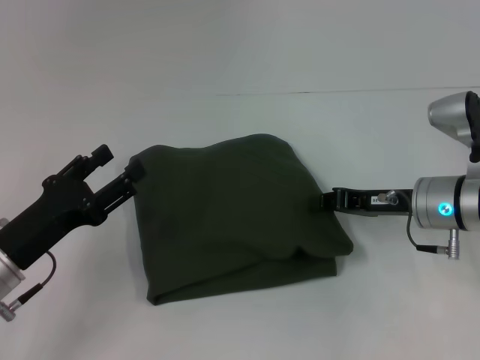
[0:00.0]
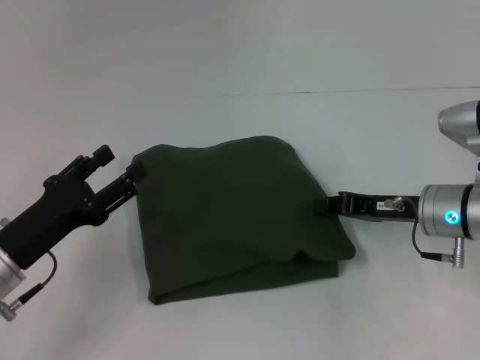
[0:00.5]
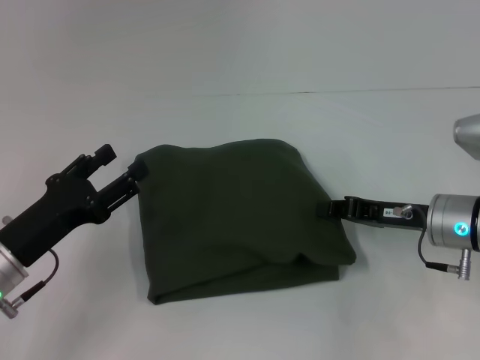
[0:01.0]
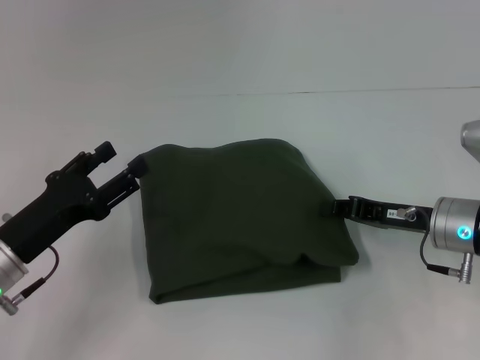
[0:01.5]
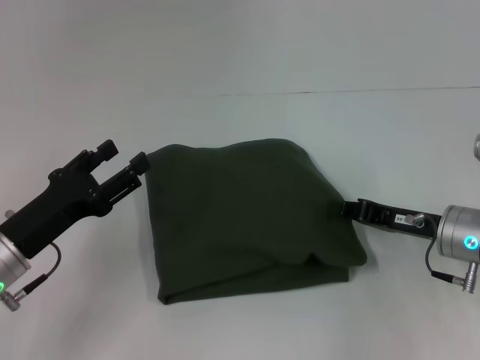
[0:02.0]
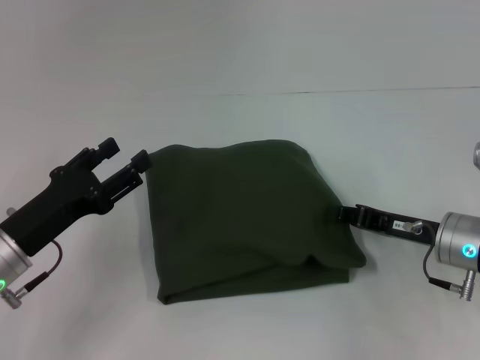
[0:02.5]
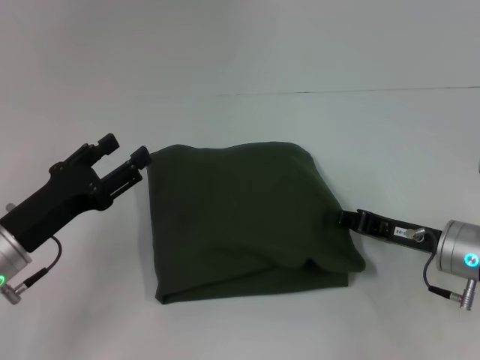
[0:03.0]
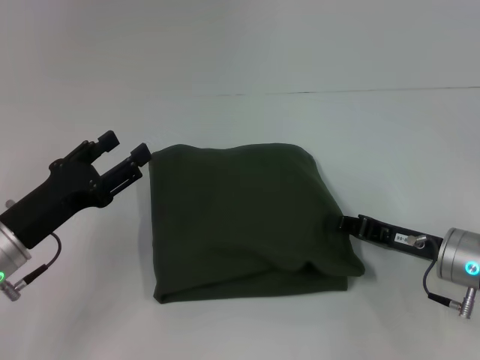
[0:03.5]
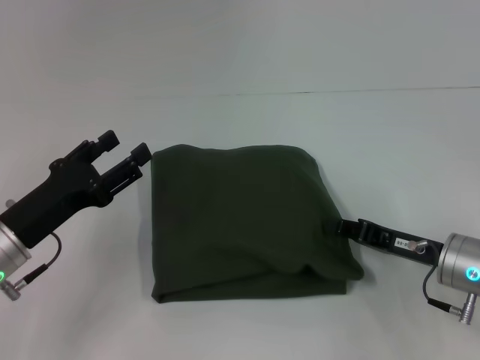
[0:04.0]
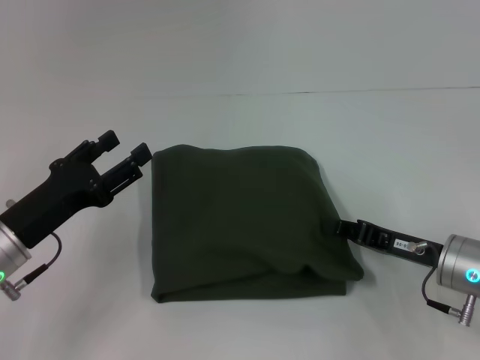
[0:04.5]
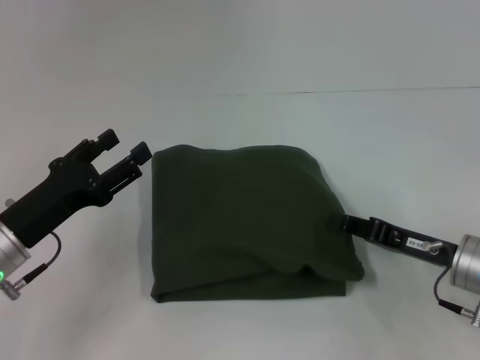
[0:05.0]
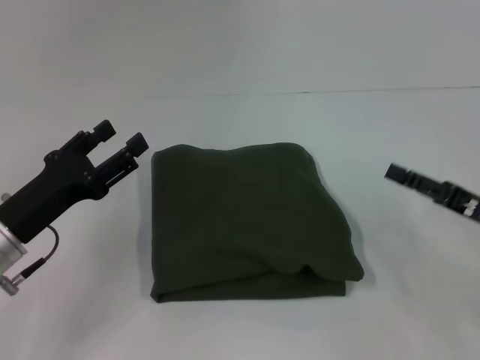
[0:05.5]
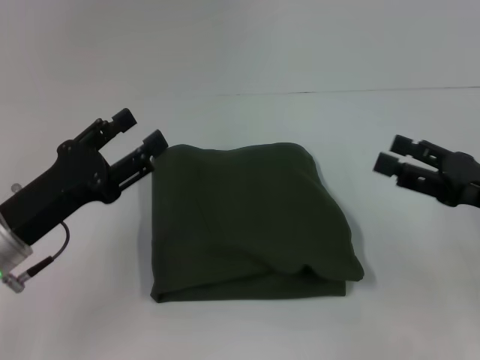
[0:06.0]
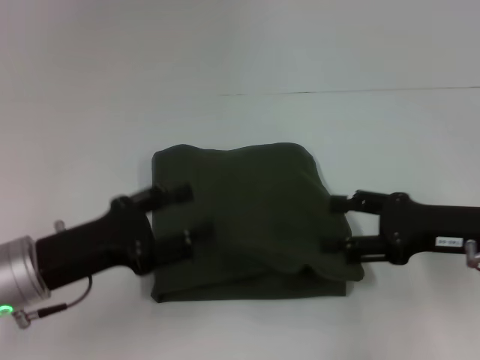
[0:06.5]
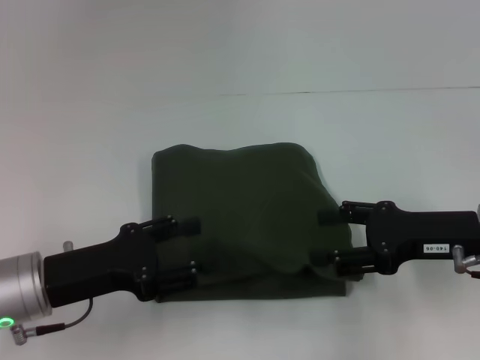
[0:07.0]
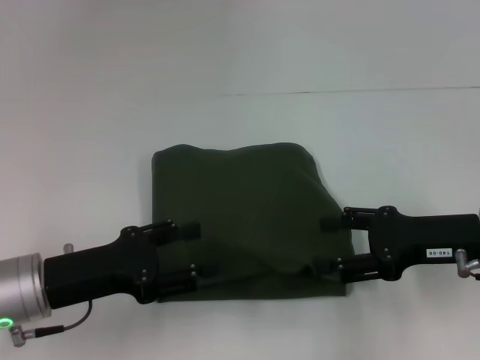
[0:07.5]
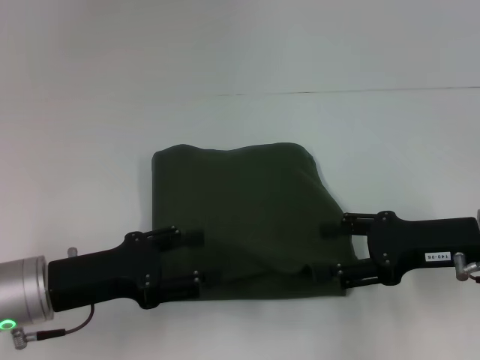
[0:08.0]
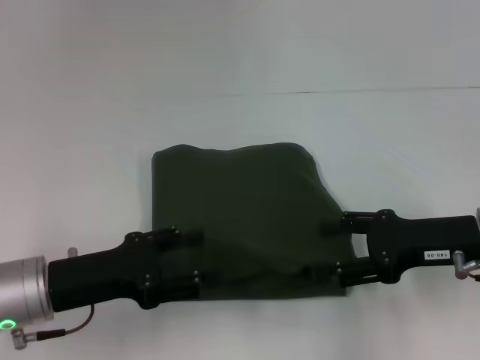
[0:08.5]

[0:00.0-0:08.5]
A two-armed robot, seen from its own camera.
0:00.0 to 0:02.0: The grippers make only small movements.
0:02.0 to 0:04.0: There are only small adjustments of the grippers.
0:04.0 to 0:06.5: The right gripper goes roughly 10 cm upward, and opens up.
0:06.5 to 0:08.5: The grippers move only a little.

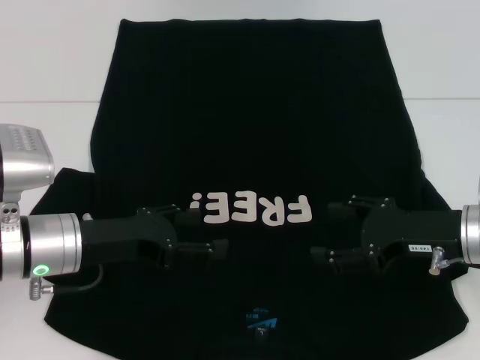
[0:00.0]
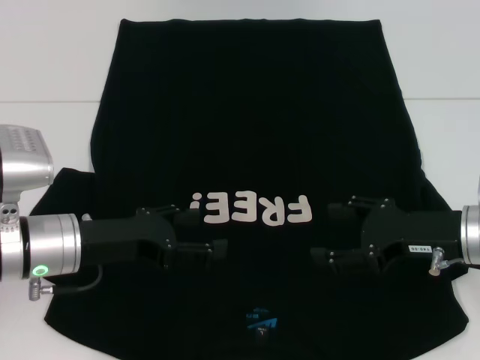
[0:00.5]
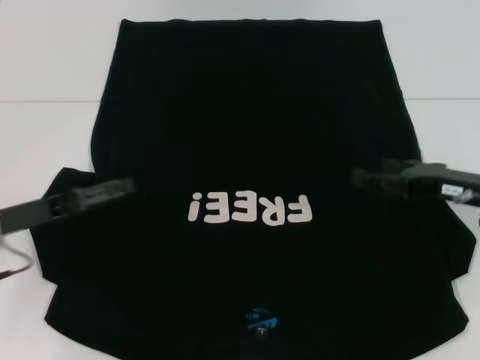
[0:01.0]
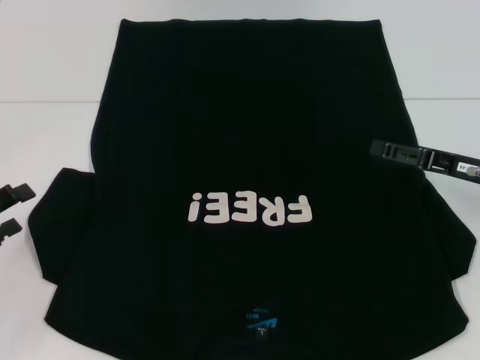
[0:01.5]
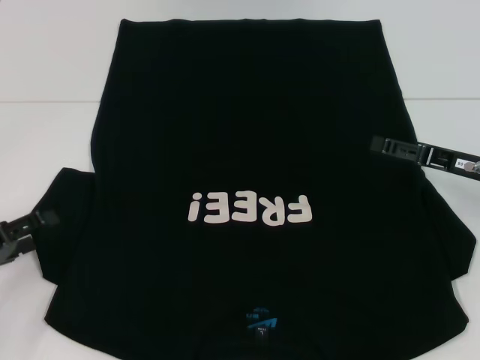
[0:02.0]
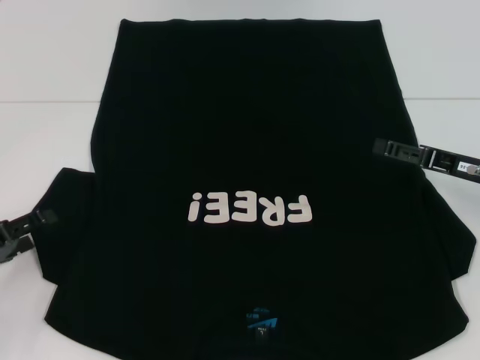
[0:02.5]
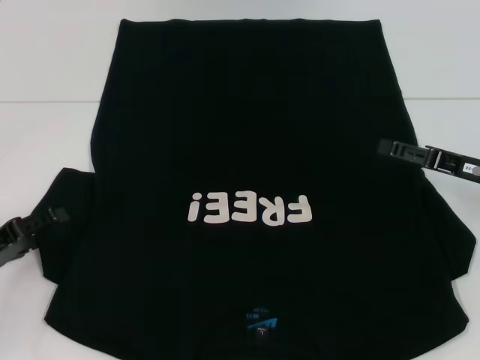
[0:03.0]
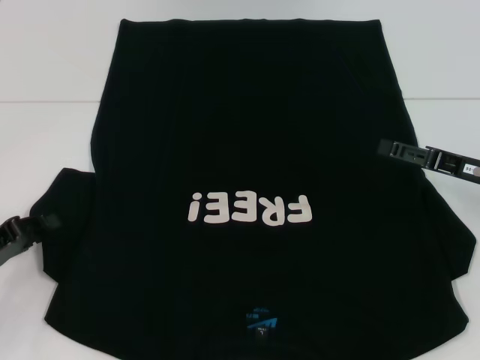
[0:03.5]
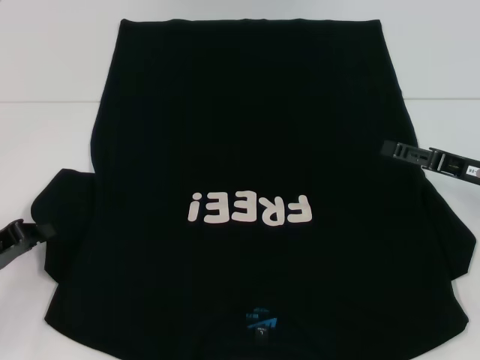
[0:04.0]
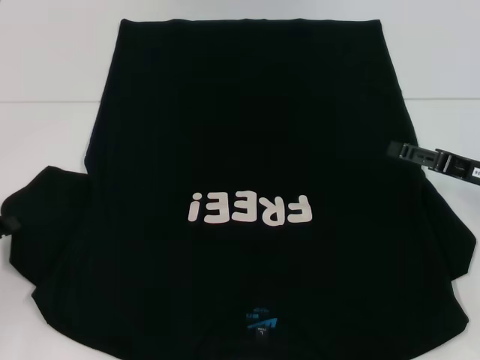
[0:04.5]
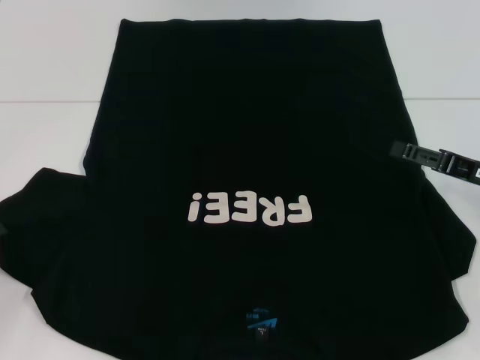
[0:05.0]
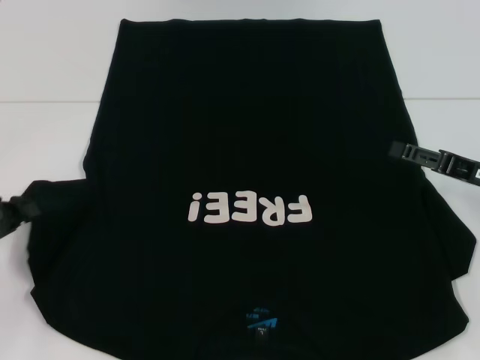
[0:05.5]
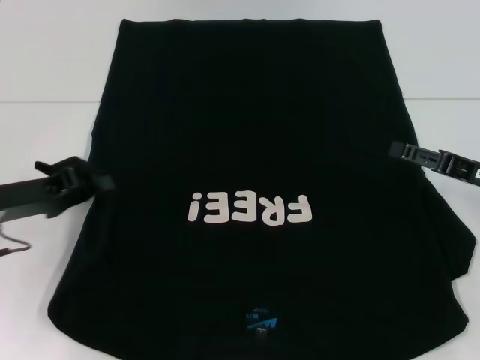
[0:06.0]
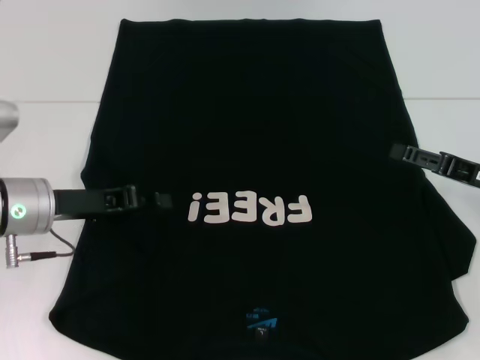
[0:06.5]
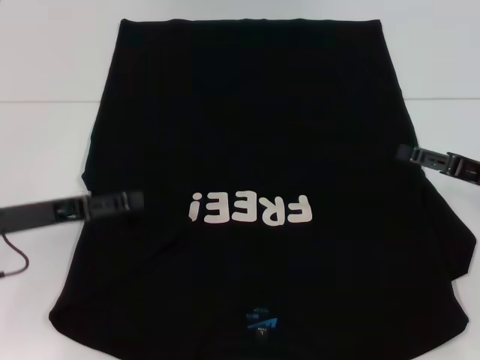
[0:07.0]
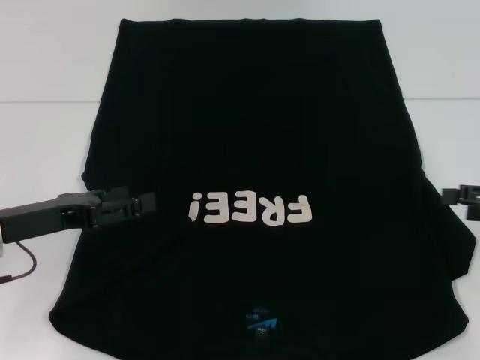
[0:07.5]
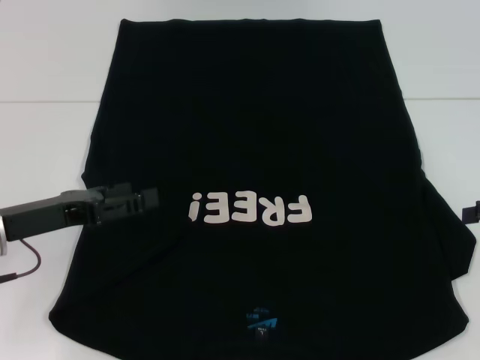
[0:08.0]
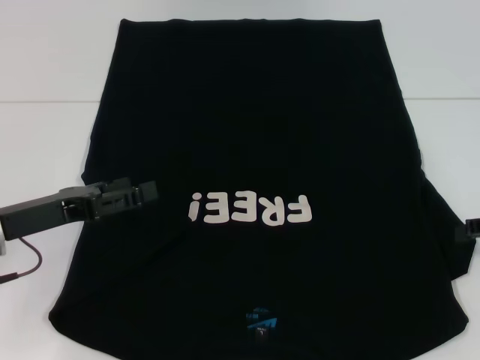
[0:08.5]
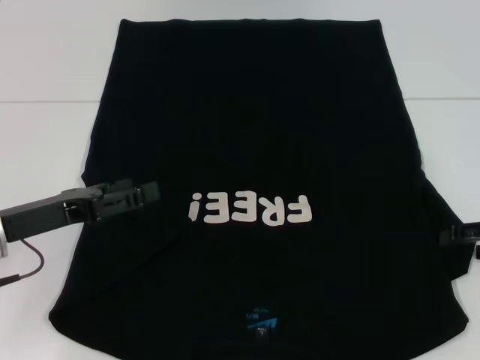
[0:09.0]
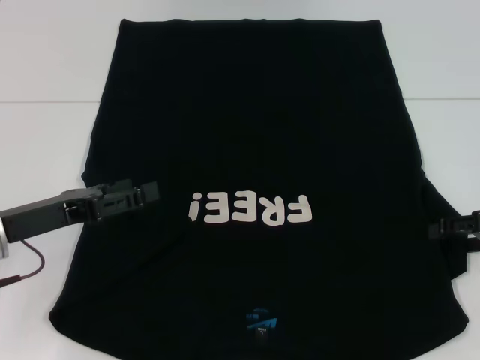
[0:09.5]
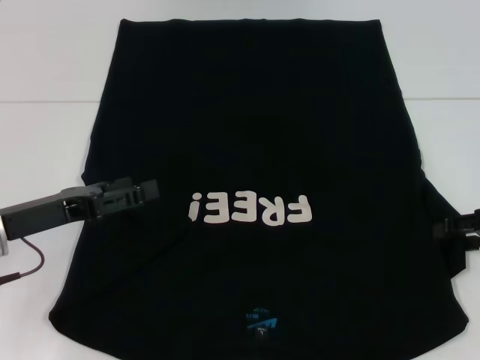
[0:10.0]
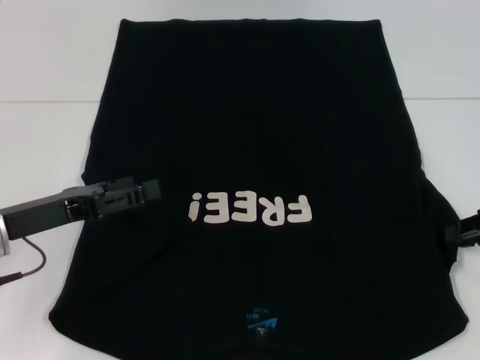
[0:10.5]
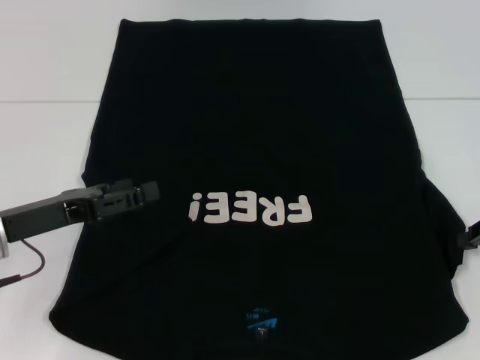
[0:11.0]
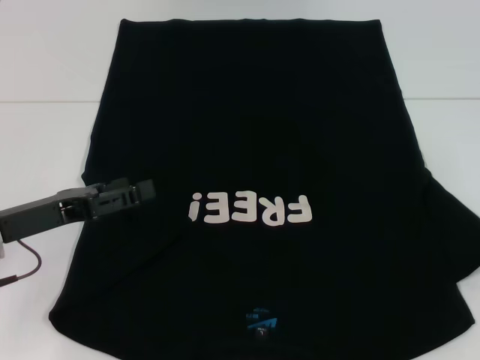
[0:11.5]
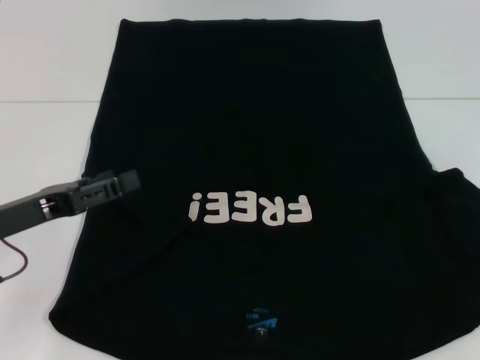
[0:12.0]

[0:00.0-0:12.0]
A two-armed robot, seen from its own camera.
Step, 0:00.0 to 0:06.5: Fold the bottom left sleeve with your left hand.
0:00.0 to 0:02.0: The right gripper shifts by roughly 5 cm. Meanwhile the left gripper is displaced to the left by some 15 cm.
0:02.0 to 0:04.0: The left gripper closes up.
0:04.0 to 0:06.0: The left gripper is displaced upward by roughly 5 cm.
0:06.0 to 0:08.0: The right gripper shifts about 10 cm to the right and upward, while the left gripper opens its fingers.
0:08.0 to 0:10.0: The grippers stay close to where they were, moving slightly.
0:10.0 to 0:12.0: The right gripper moves to the right, approximately 5 cm, and closes its fingers.

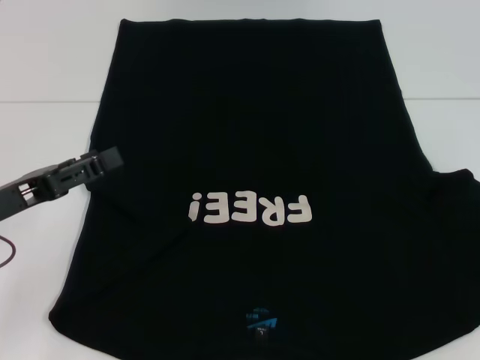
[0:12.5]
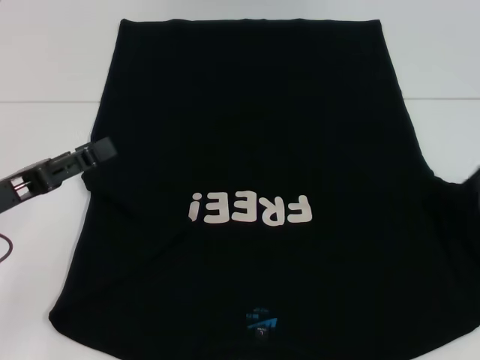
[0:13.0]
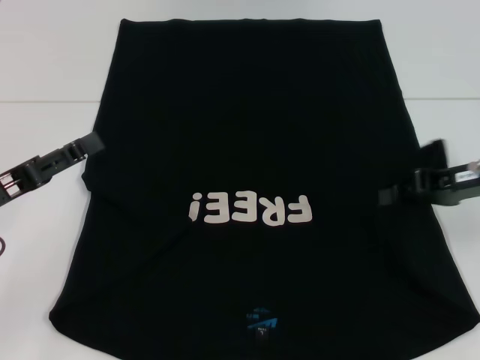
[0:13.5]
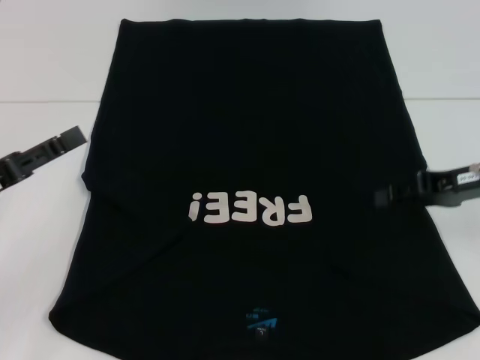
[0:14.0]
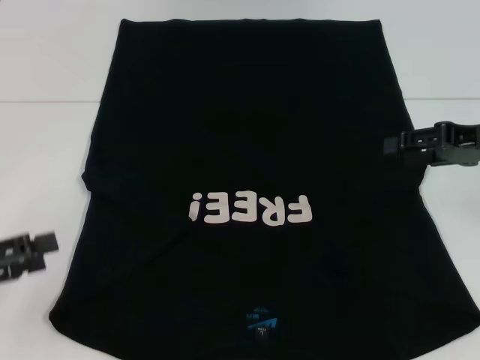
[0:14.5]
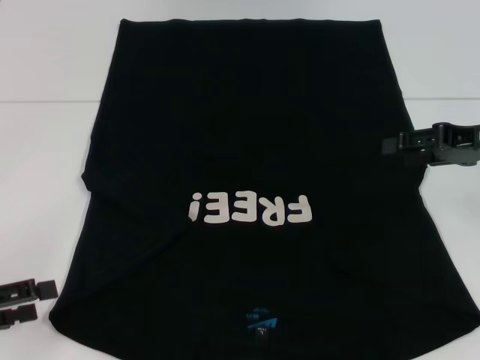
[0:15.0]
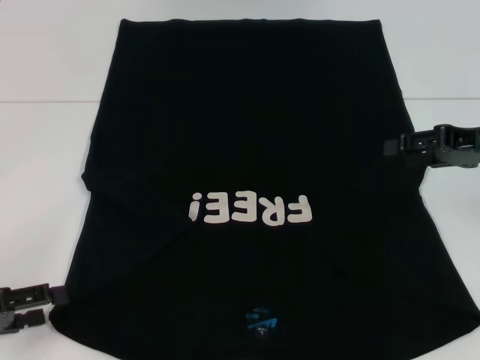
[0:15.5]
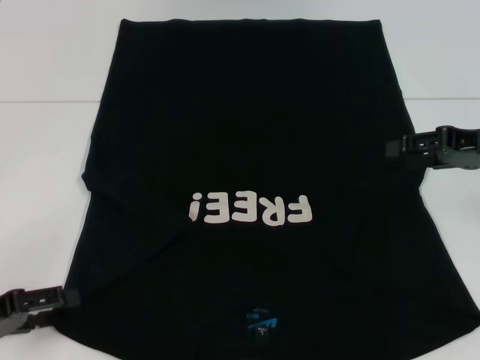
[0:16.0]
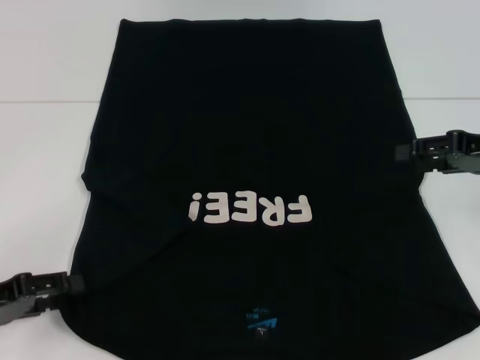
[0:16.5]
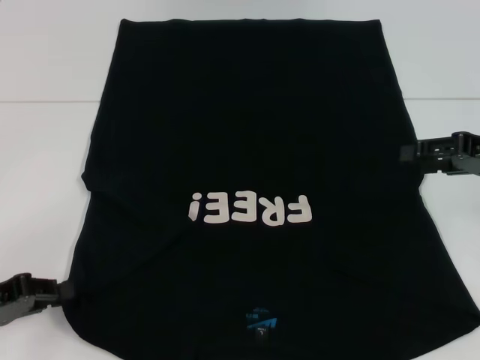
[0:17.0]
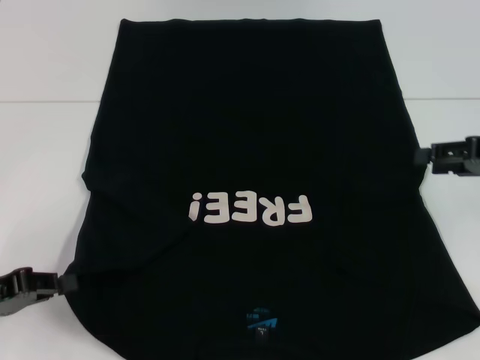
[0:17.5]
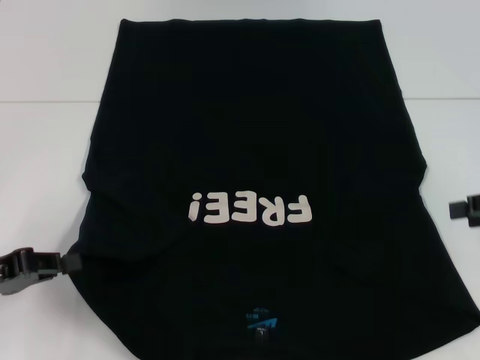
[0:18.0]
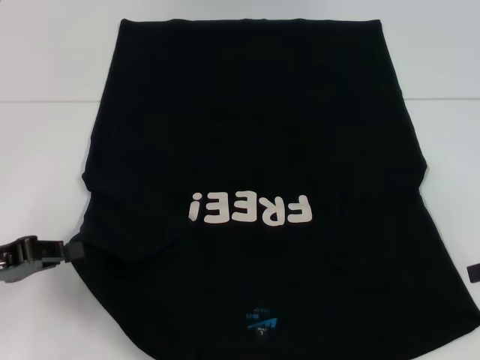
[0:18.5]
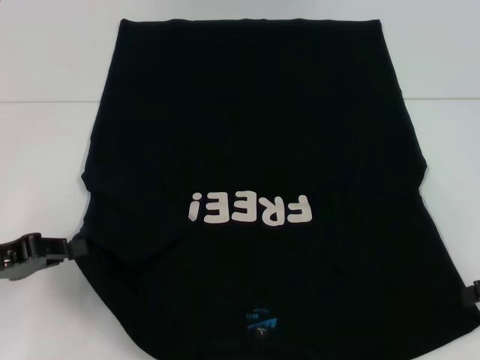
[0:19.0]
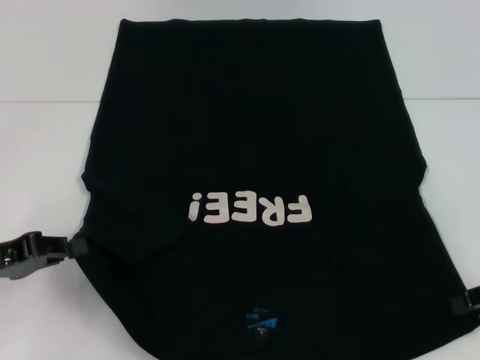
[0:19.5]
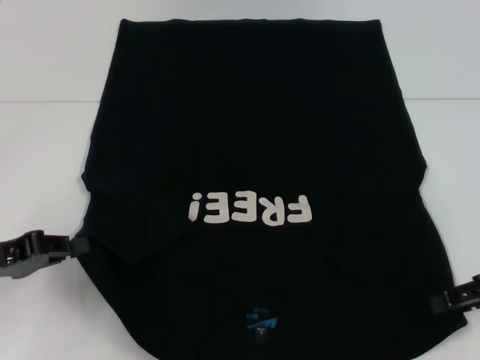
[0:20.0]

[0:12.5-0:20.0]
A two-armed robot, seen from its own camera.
Step, 0:14.5 to 0:17.0: Grab the bottom left corner with your left hand.
0:12.5 to 0:14.5: The left gripper travels to the left and backward by roughly 10 cm; the right gripper is displaced to the left and forward by some 10 cm, and opens up.
0:14.5 to 0:16.5: The left gripper shifts by some 5 cm.
0:16.5 to 0:18.0: The right gripper ends up approximately 5 cm from where it was, while the left gripper closes.
0:18.0 to 0:20.0: The right gripper moves about 5 cm.
